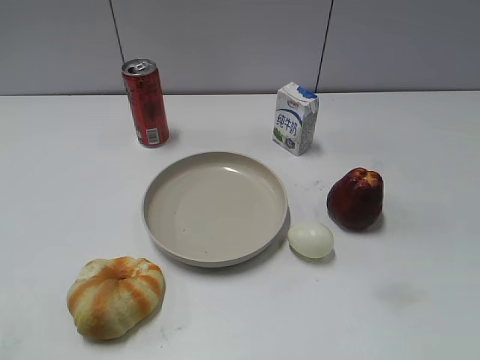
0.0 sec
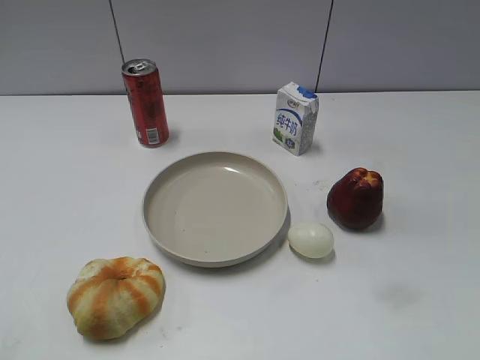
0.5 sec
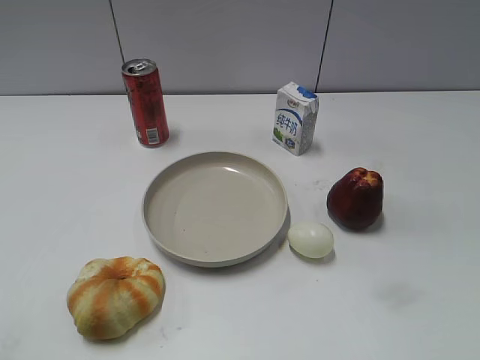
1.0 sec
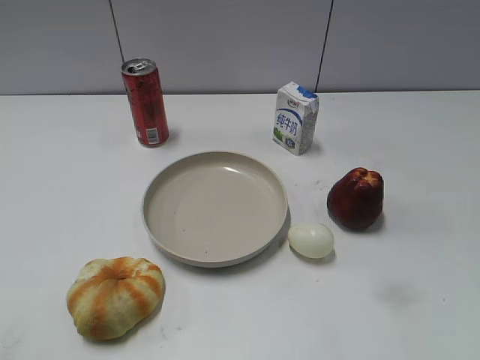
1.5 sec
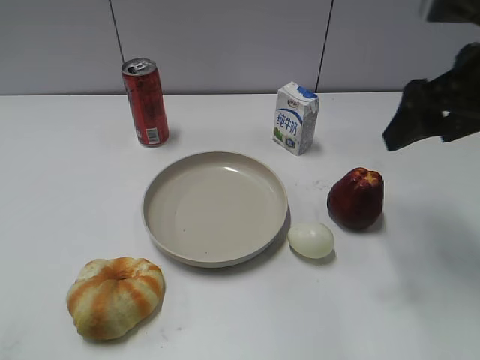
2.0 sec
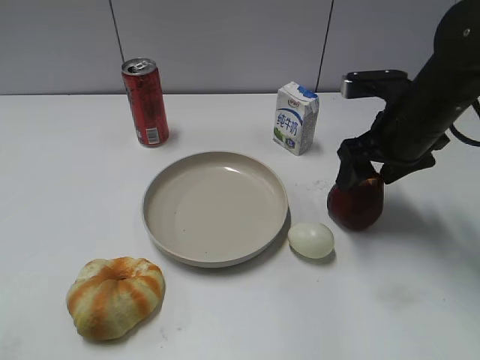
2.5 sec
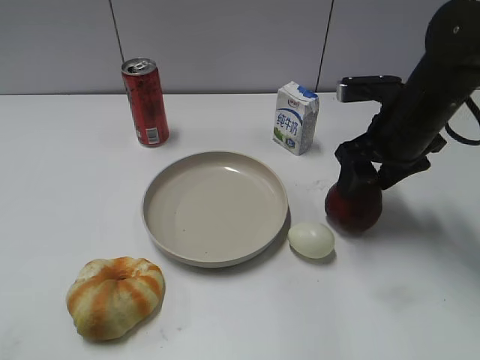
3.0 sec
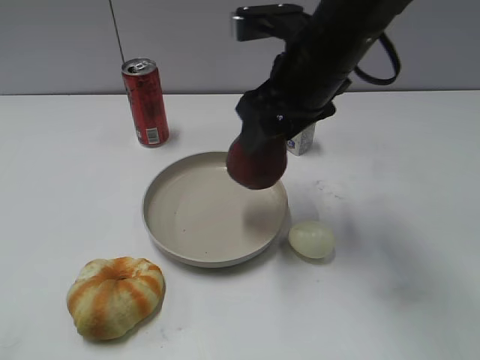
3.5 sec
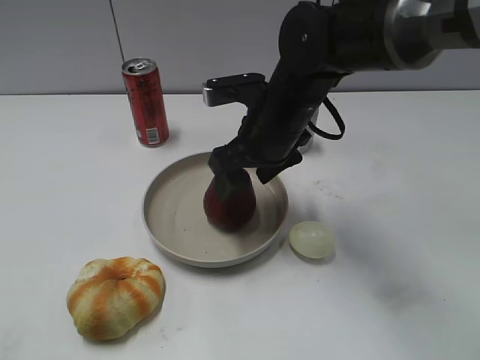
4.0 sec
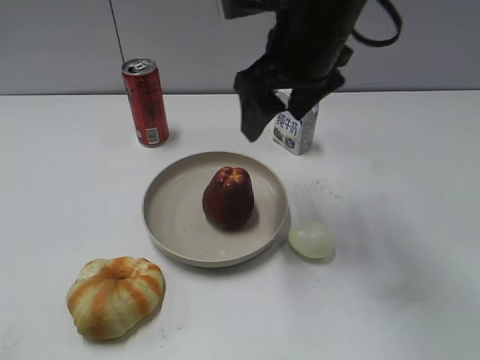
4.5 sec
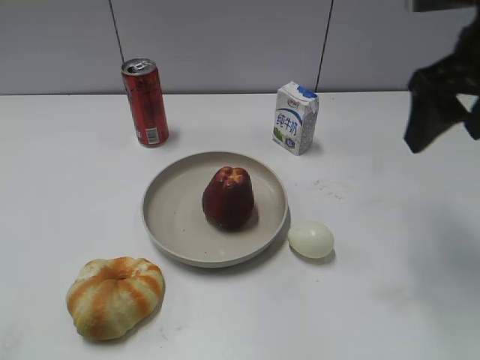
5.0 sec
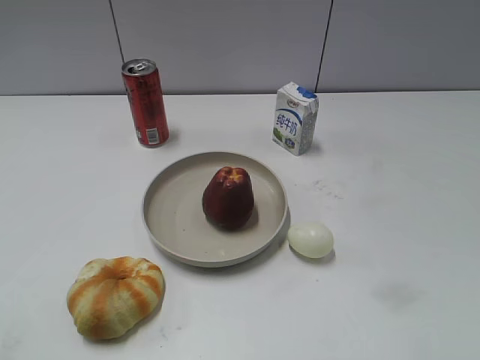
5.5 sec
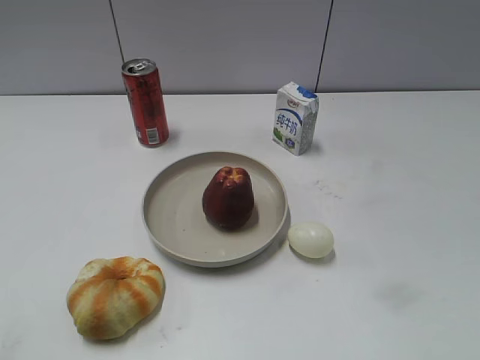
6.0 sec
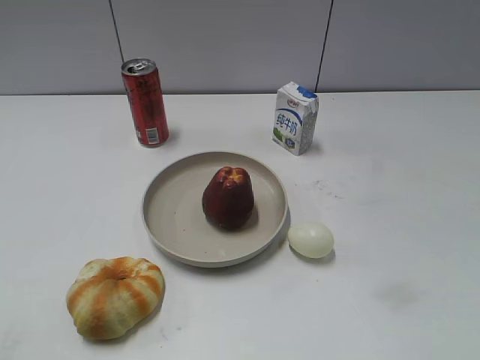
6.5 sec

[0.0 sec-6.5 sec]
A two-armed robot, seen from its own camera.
Step, 1.0 sec to 2.5 sec: Grasp the apple with right gripper.
Step, 3.0 sec to 4.0 sec: Place the apple on the plate with right gripper.
2.0 sec to 4.5 sec: The right gripper goes about 15 cm to the left, and closes and opens again.
4.5 sec to 6.5 sec: The right gripper is displaced backward and to the right by approximately 40 cm, and closes its fingers.

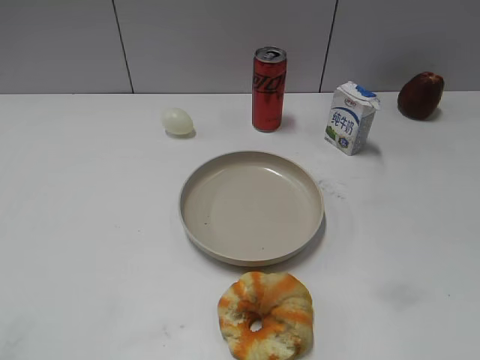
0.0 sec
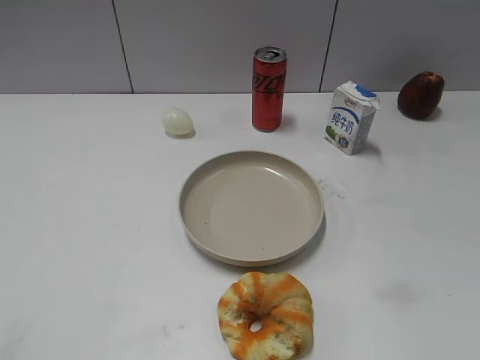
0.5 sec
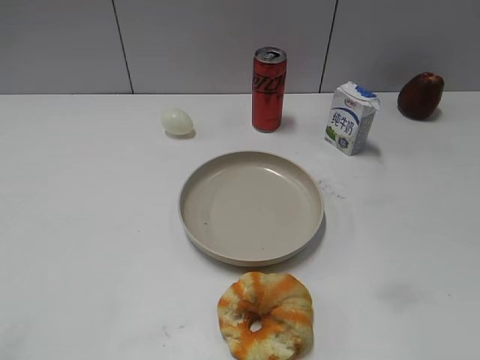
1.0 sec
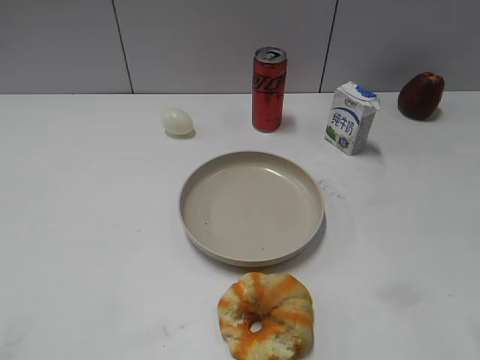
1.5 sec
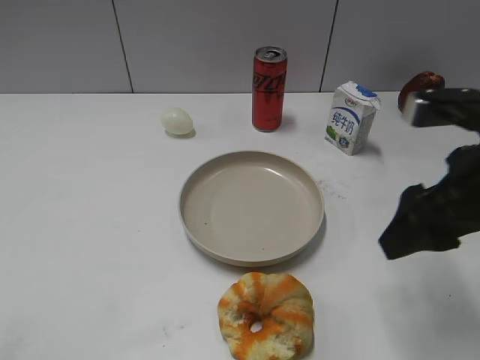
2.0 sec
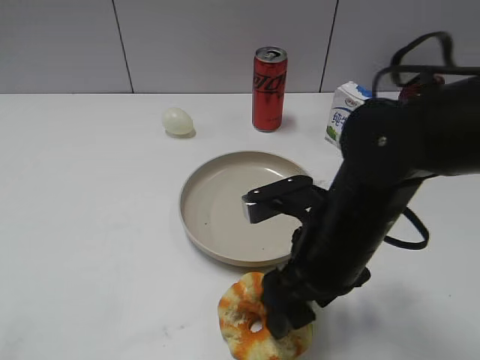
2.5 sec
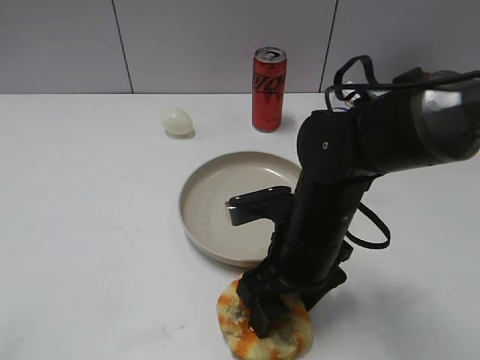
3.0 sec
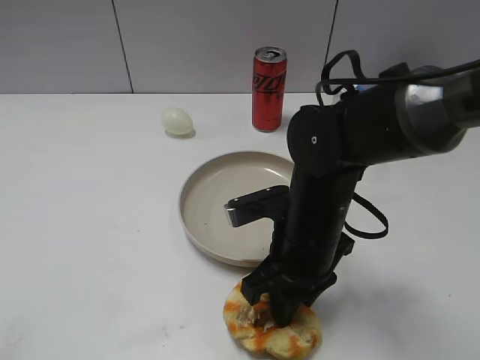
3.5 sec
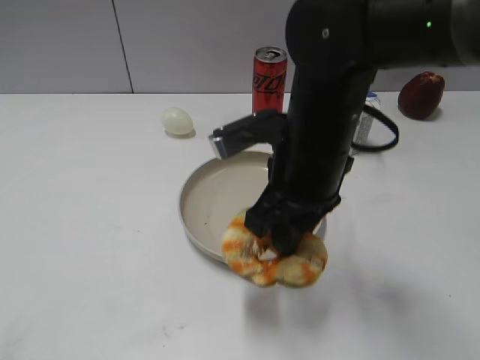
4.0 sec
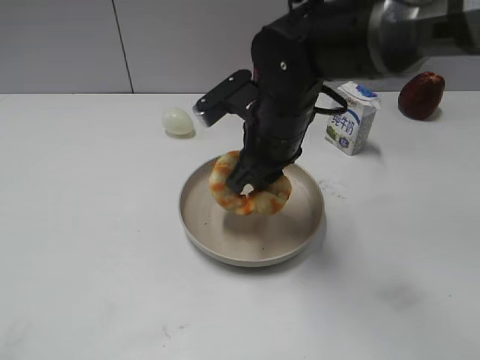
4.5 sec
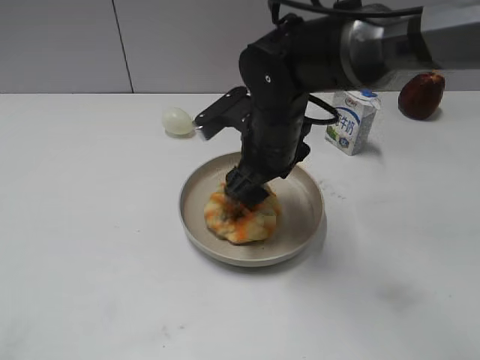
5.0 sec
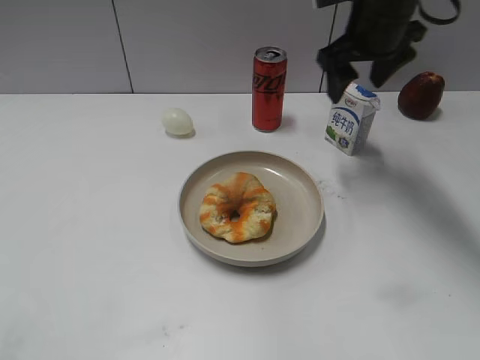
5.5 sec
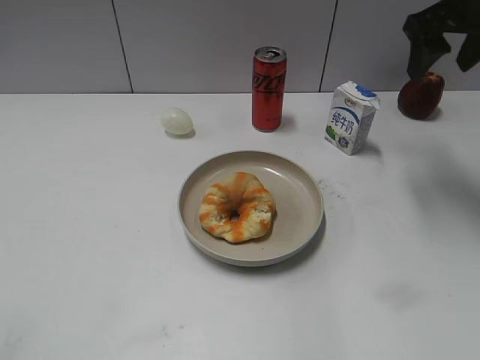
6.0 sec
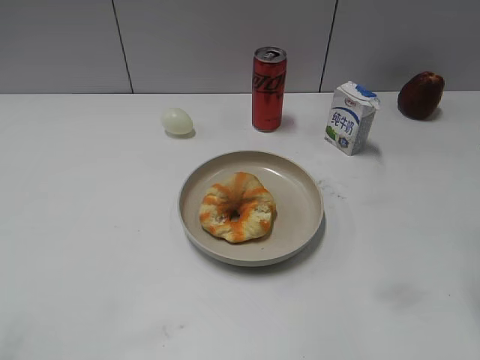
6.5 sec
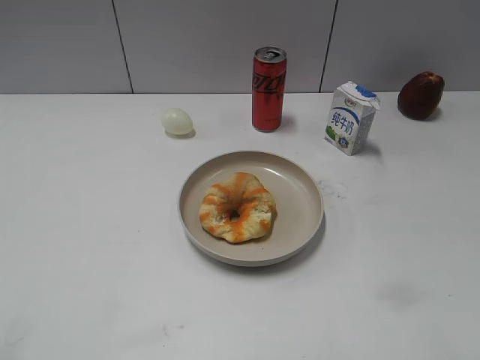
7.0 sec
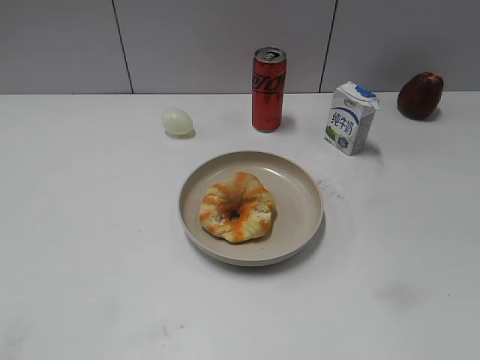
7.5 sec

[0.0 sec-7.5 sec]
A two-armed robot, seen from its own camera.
Step, 1.0 sec to 3.0 sec: Grasp the round bread with right gripper.
Step, 3.5 sec to 5.0 sec: Place the round bread on the plate with right gripper.
2.0 sec to 4.0 sec: The right gripper heads to the left, covering some 15 cm, and closes.
4.0 sec to 5.5 sec: The right gripper moves forward and to the right, approximately 20 cm, and opens its fingers.
5.5 sec to 7.5 sec: The right gripper shifts roughly 40 cm backward.
